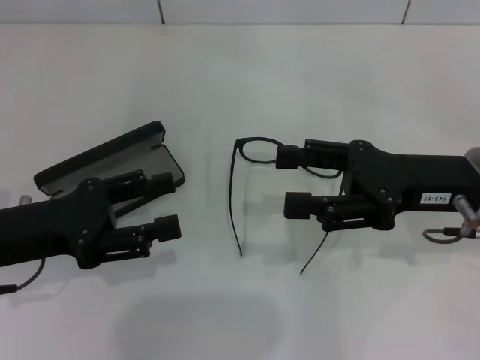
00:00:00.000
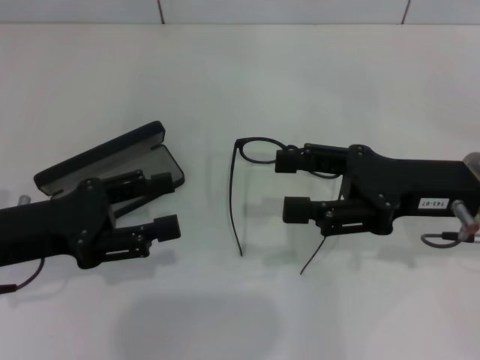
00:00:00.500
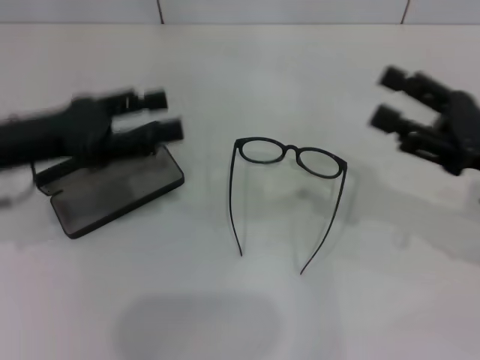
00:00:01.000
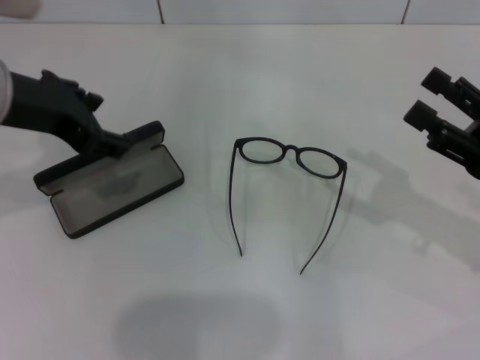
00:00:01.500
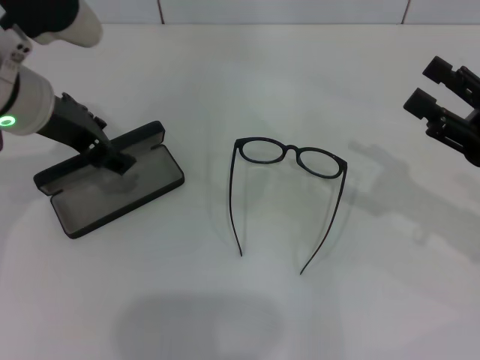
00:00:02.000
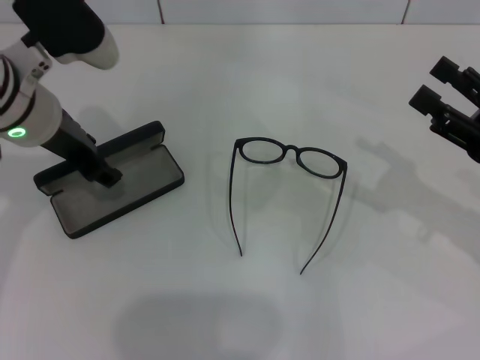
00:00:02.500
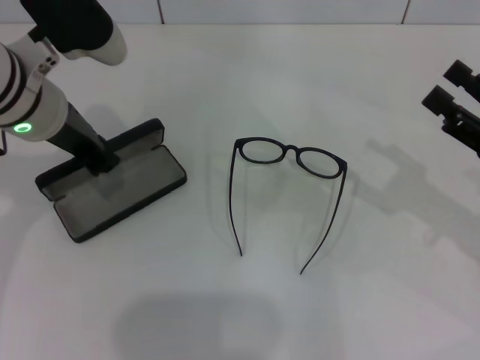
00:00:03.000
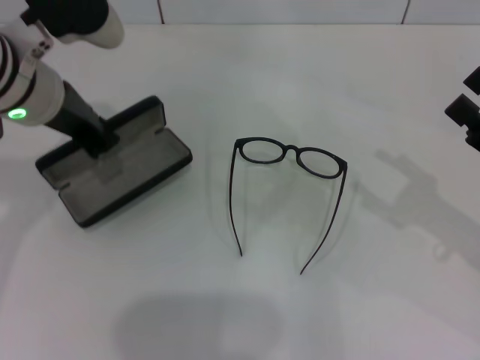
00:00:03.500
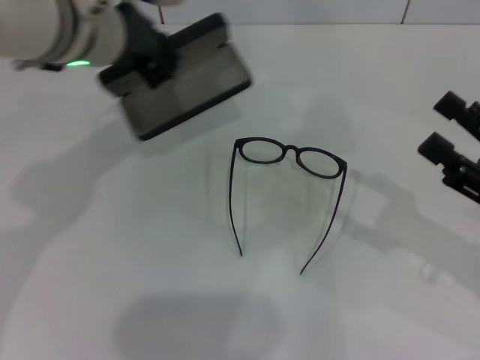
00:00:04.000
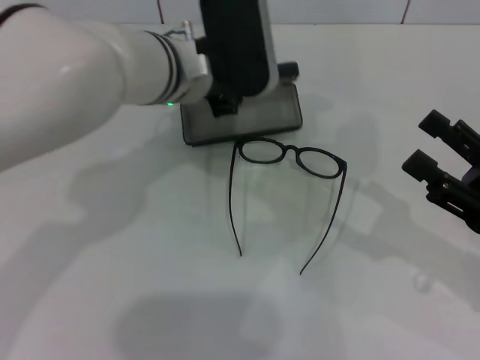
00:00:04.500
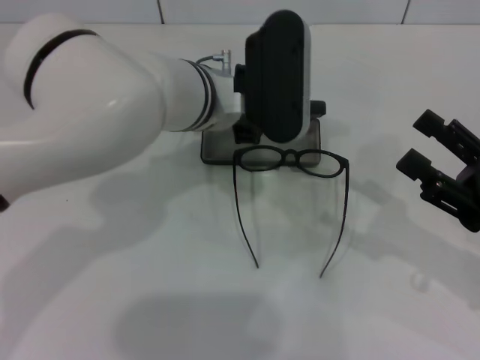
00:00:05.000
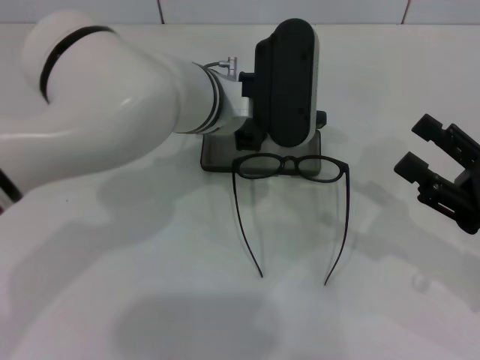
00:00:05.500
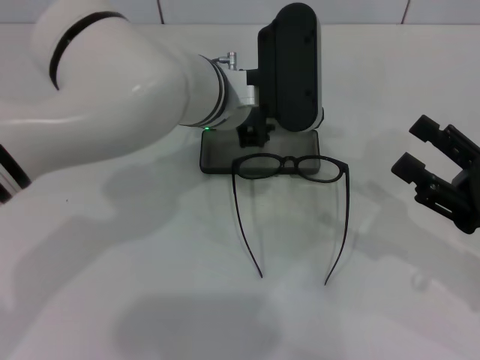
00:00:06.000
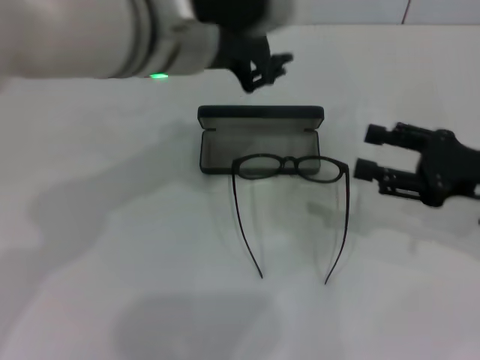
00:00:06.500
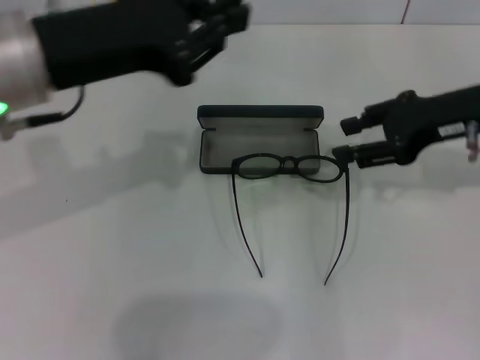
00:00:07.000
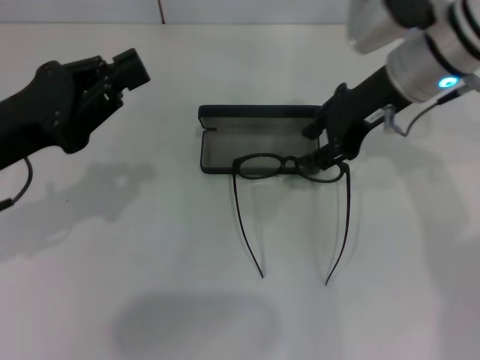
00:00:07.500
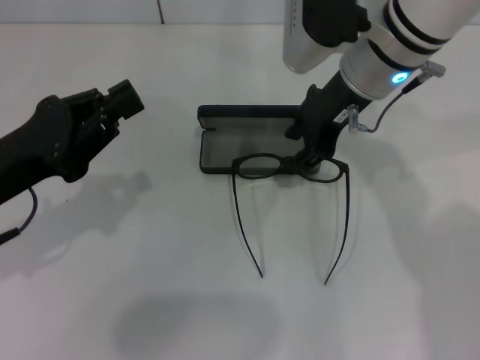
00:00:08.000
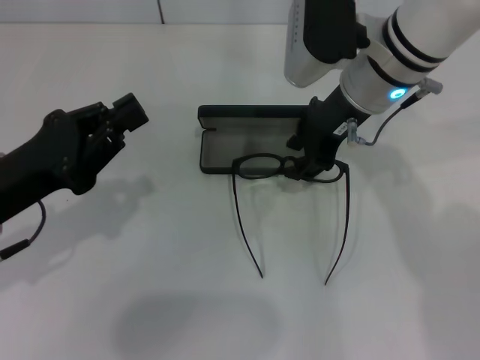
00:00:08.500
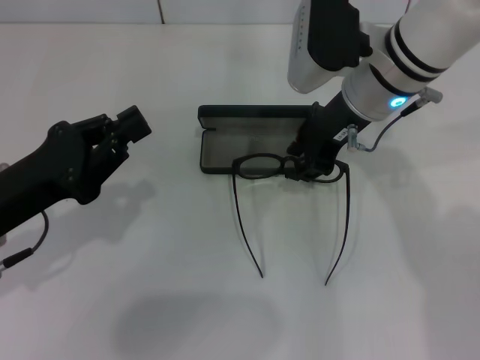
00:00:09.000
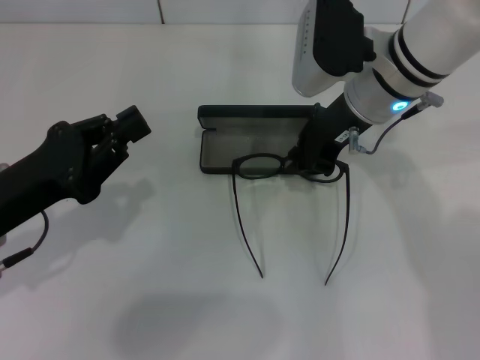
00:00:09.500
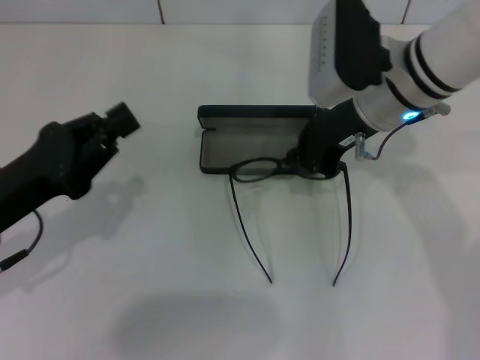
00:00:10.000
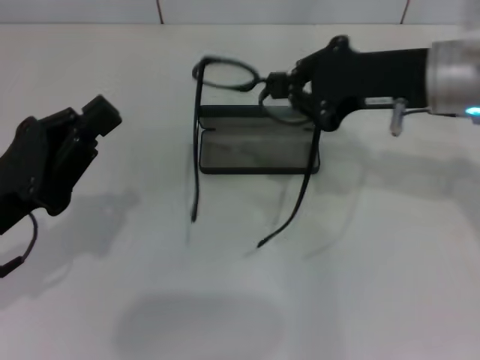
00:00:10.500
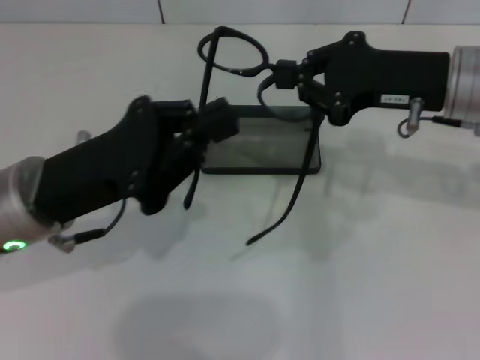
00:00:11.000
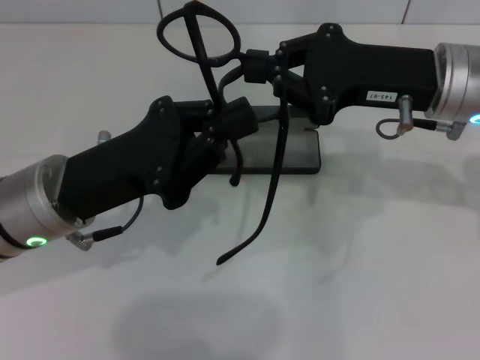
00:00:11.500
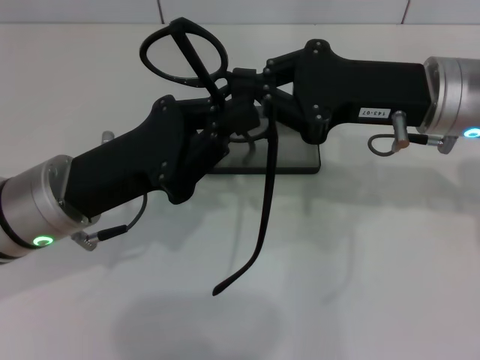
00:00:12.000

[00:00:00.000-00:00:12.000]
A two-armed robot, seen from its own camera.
Step, 00:00:00.000 to 00:00:03.000: Grab the glasses case with your left hand.
Step, 00:00:03.500 to 00:00:06.000: Place the glasses case in the center of the table with your left hand.
Step, 00:00:06.500 to 00:00:09.500: Grab the eyeglass frame with your right hand.
00:00:00.000 to 00:00:02.000: The right gripper heads to the right, covering about 10 cm. The left gripper goes some 15 cm forward, upward and to the right.
00:00:02.000 to 00:00:04.000: The left gripper is displaced to the right by roughly 5 cm, and closes up.
00:00:04.000 to 00:00:06.000: The left gripper travels to the right and downward by approximately 10 cm.
00:00:06.000 to 00:00:08.000: The left gripper travels to the left and backward by about 25 cm. The right gripper is displaced to the left, forward and upward by some 30 cm, and closes.
00:00:08.000 to 00:00:10.000: The right gripper closes up.
00:00:10.000 to 00:00:12.000: The left gripper shifts some 10 cm to the right. The right gripper moves backward and to the right, roughly 10 cm.

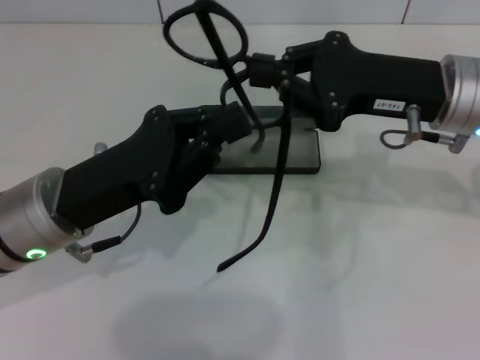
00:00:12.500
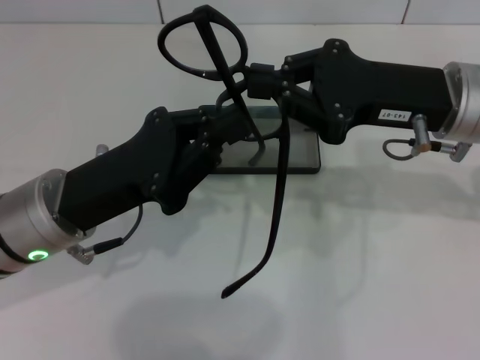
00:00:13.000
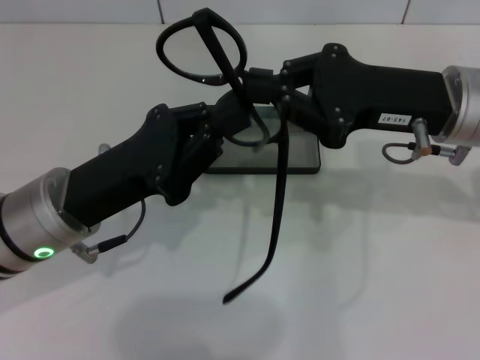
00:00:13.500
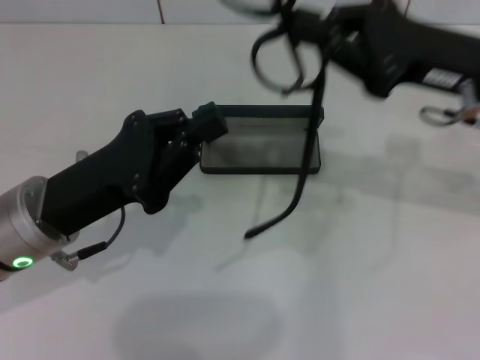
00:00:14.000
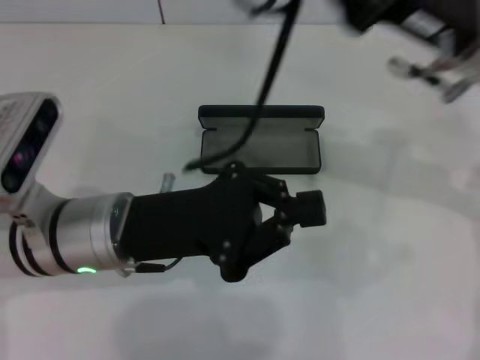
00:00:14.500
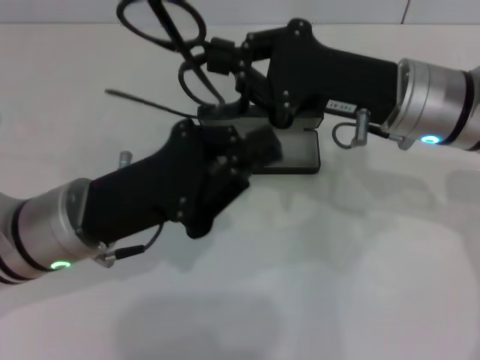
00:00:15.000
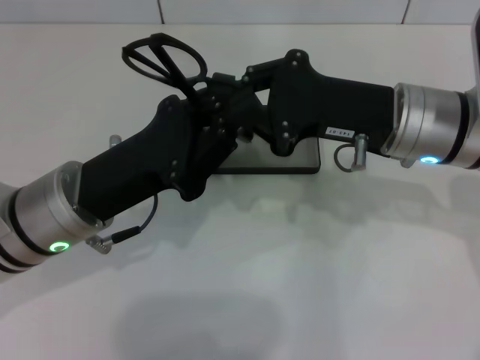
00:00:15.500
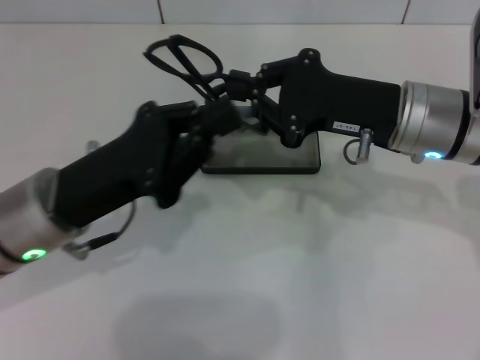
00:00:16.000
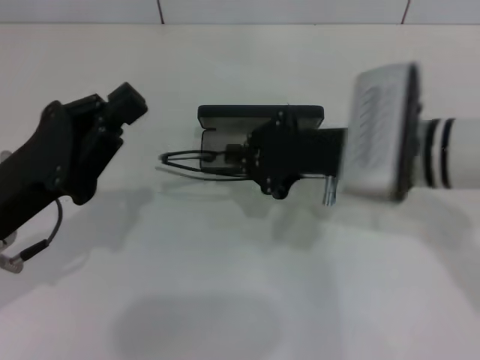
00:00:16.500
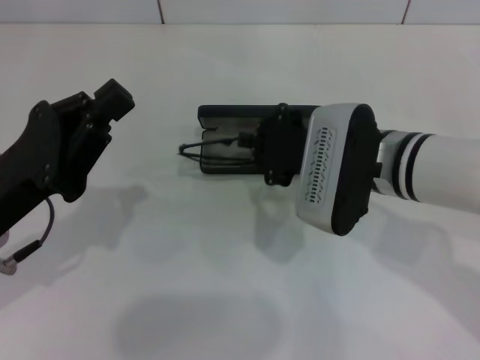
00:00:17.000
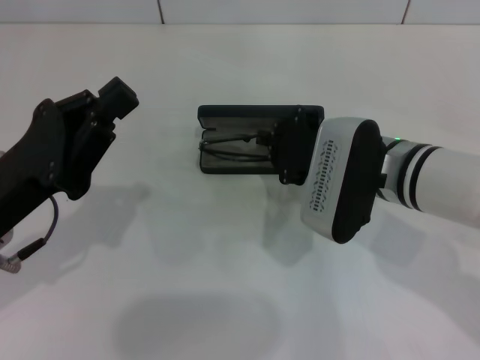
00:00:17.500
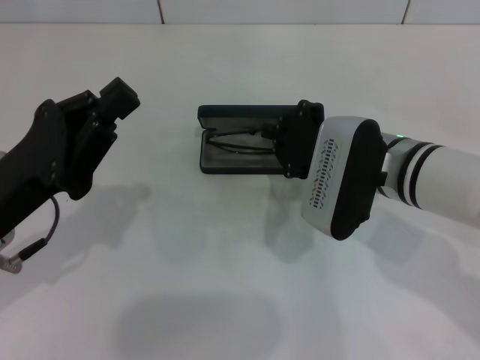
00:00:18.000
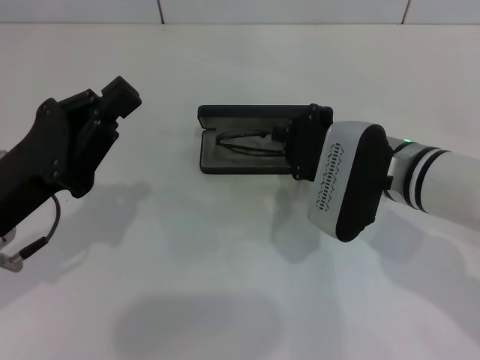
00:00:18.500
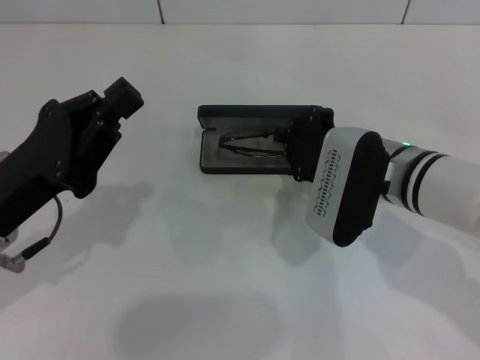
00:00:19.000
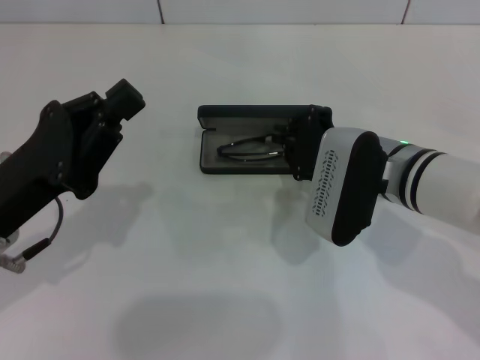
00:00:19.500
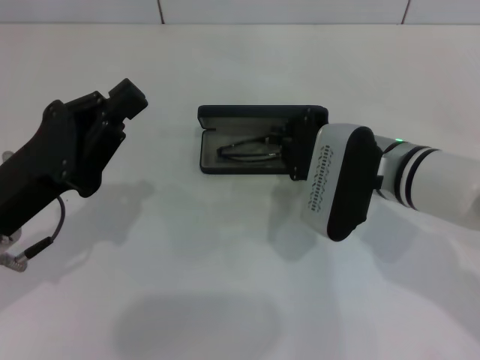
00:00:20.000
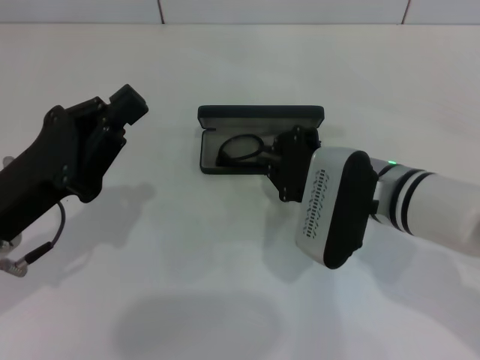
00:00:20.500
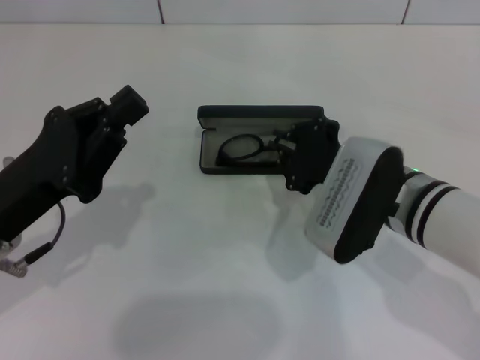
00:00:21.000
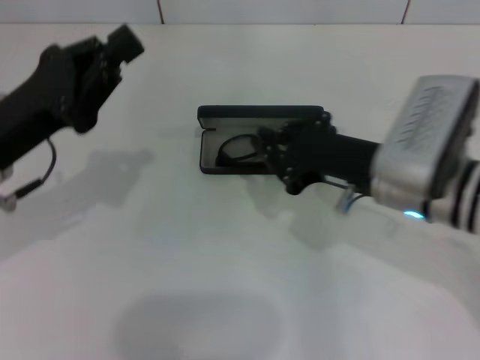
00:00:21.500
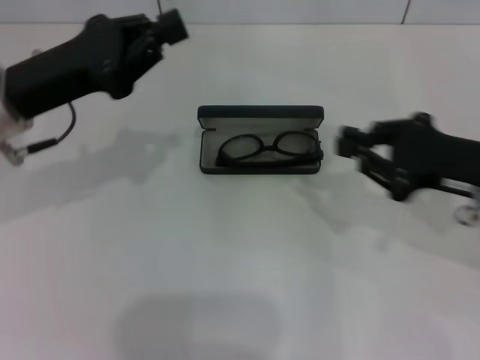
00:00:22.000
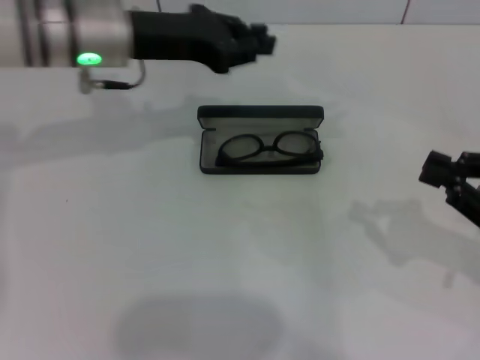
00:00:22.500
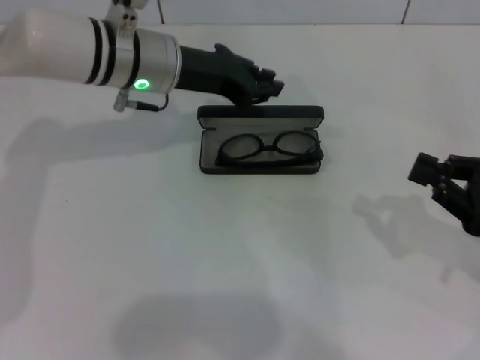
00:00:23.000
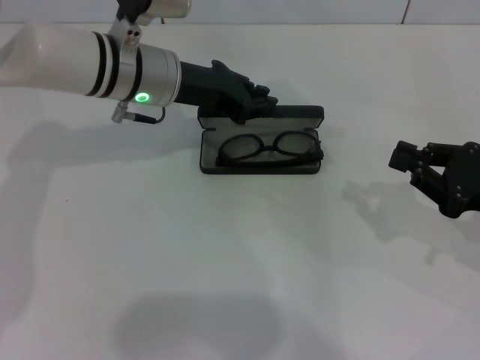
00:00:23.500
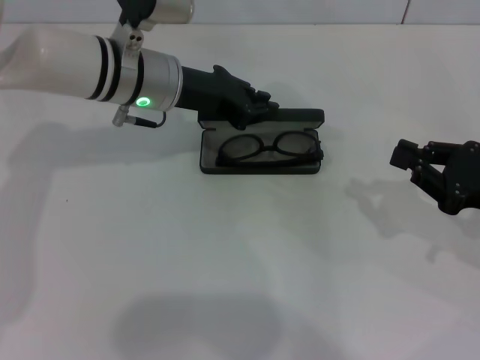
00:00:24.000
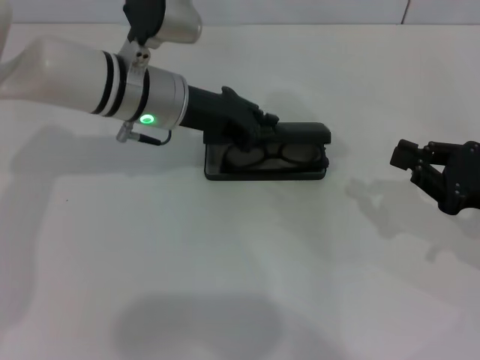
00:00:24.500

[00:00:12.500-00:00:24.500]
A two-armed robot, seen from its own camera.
Step, 00:00:12.500 to 00:00:15.500: Fold the frame with your left hand.
Step, 00:00:16.000 to 00:00:20.500: Put the glasses into the case with your right hand.
00:00:14.500 to 00:00:16.500: The right gripper travels downward and to the left by roughly 10 cm, while the left gripper travels to the left by approximately 10 cm.
00:00:18.500 to 00:00:20.500: The grippers move only a little.
00:00:20.500 to 00:00:22.500: The left gripper shifts approximately 20 cm forward, upward and to the right. The right gripper goes about 20 cm to the right.
00:00:22.500 to 00:00:24.500: The left gripper shifts roughly 5 cm downward.

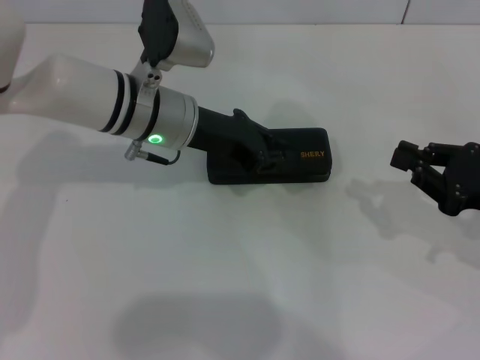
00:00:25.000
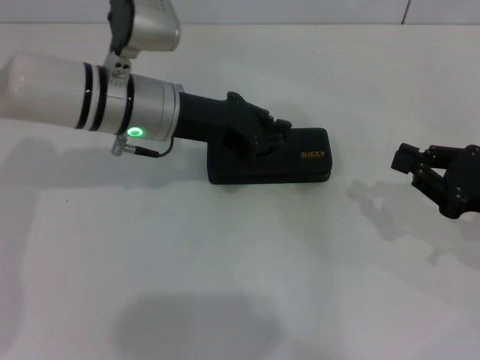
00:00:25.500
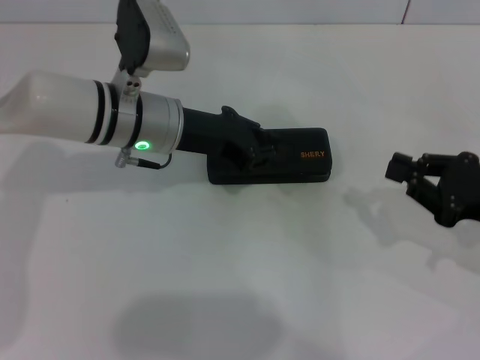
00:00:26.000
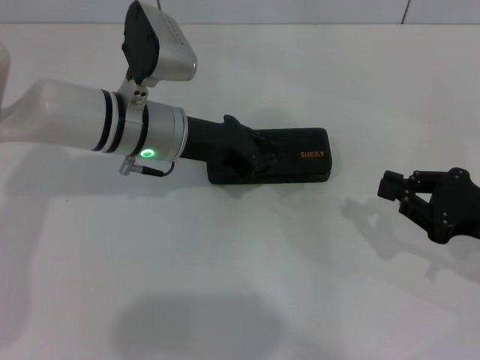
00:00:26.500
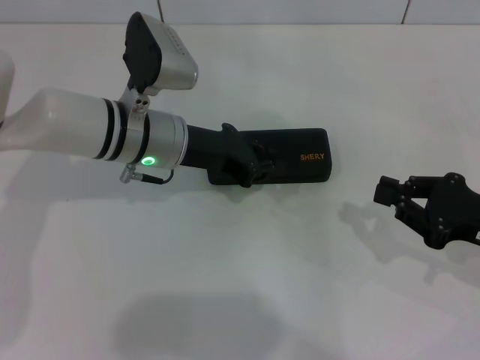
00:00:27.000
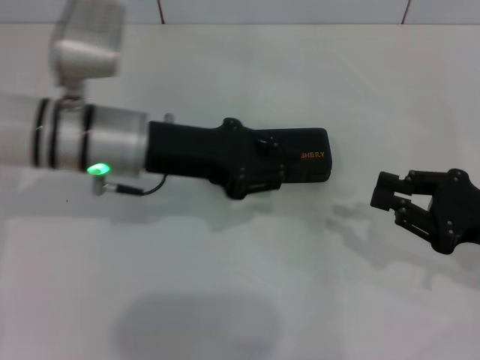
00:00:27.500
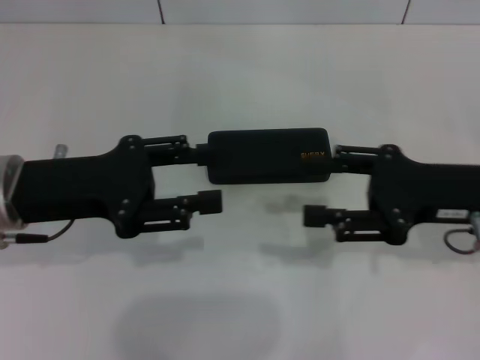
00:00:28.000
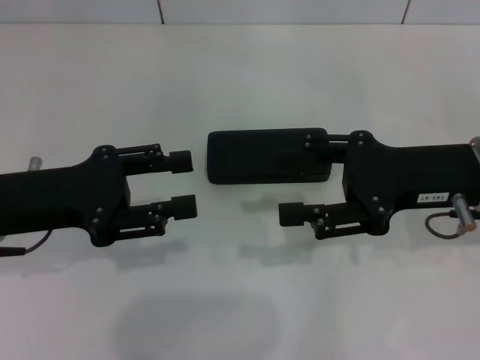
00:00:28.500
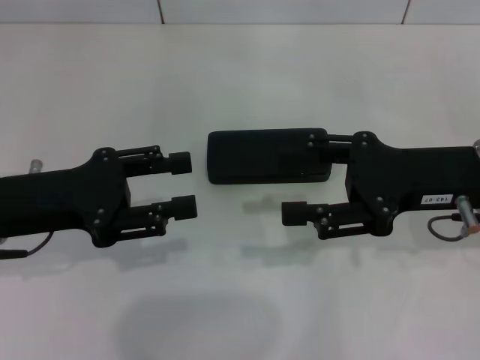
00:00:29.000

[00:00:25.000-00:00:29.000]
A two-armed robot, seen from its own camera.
00:00:25.000 to 00:00:27.000: The grippers move only a little.
00:00:27.000 to 00:00:29.000: The right gripper travels to the left and upward by approximately 10 cm, and opens. The left gripper moves to the left and backward, some 15 cm, and opens up.
